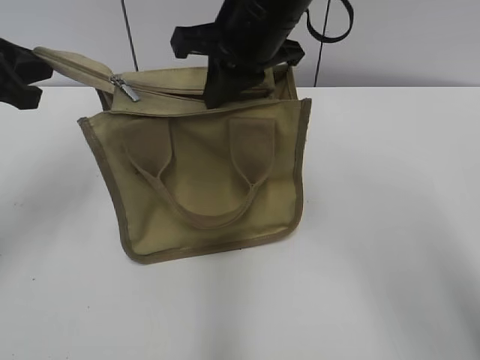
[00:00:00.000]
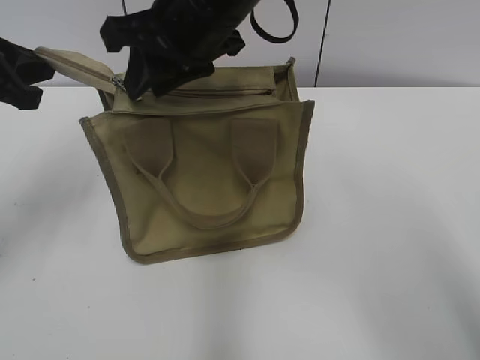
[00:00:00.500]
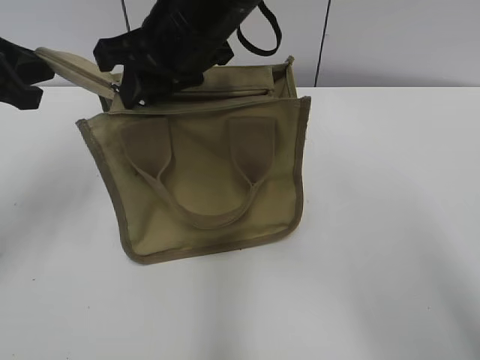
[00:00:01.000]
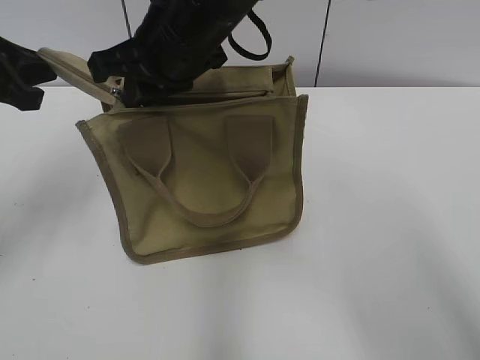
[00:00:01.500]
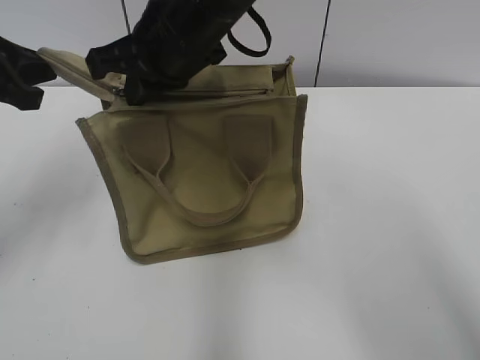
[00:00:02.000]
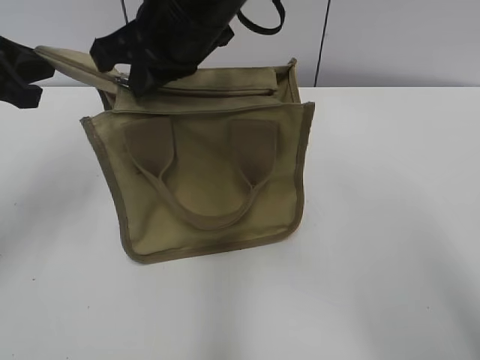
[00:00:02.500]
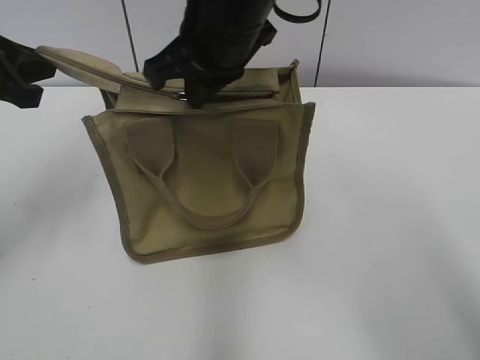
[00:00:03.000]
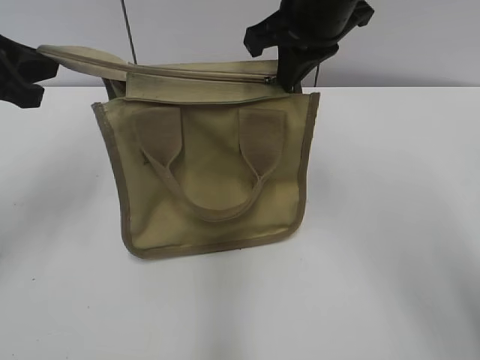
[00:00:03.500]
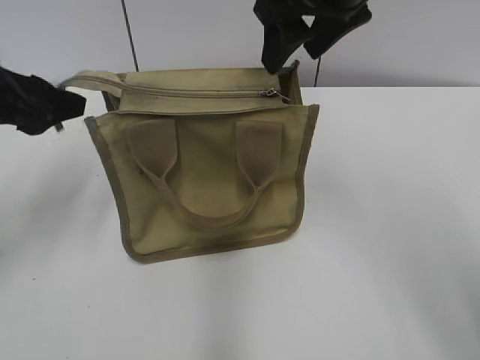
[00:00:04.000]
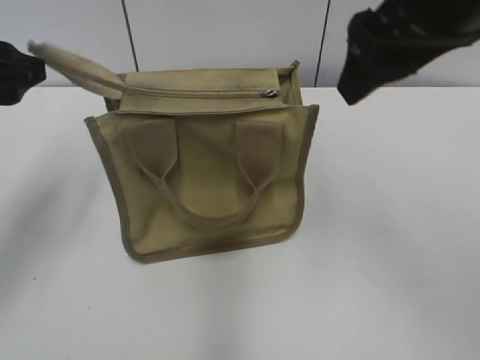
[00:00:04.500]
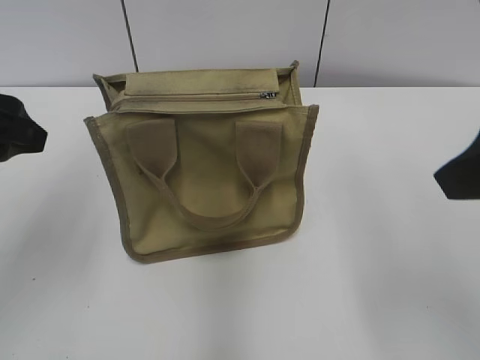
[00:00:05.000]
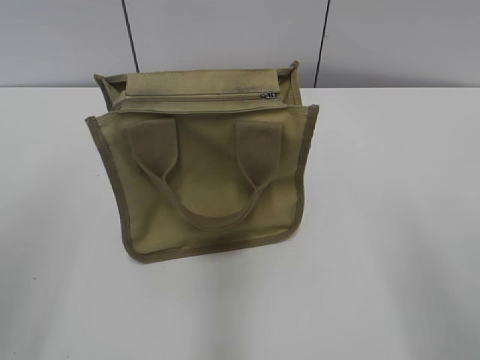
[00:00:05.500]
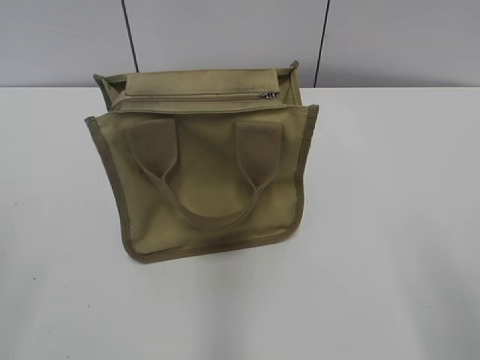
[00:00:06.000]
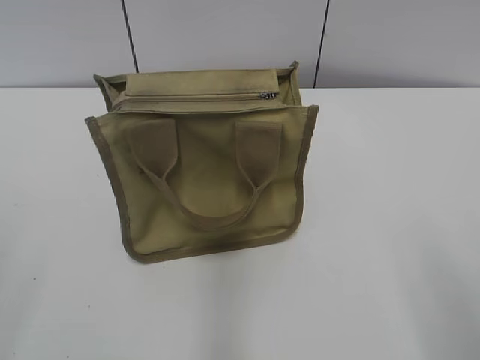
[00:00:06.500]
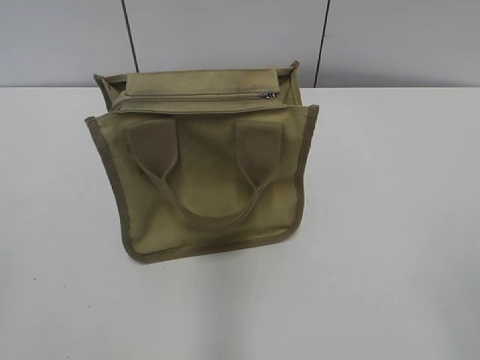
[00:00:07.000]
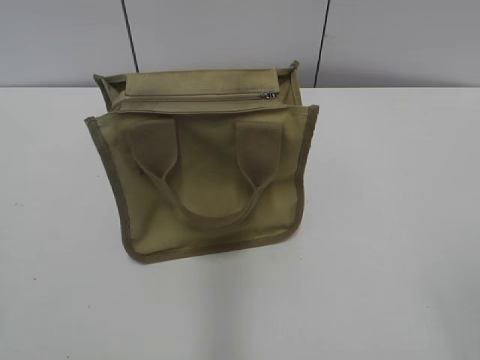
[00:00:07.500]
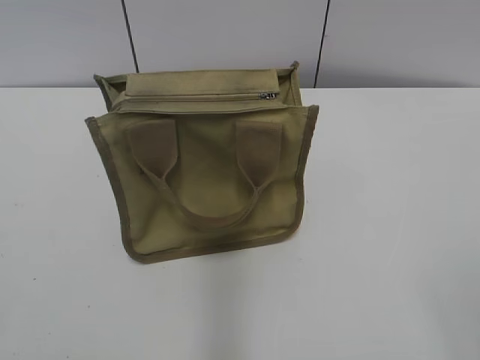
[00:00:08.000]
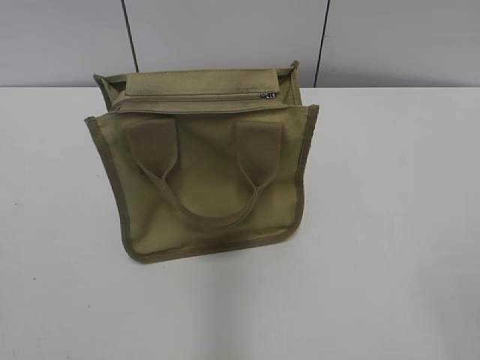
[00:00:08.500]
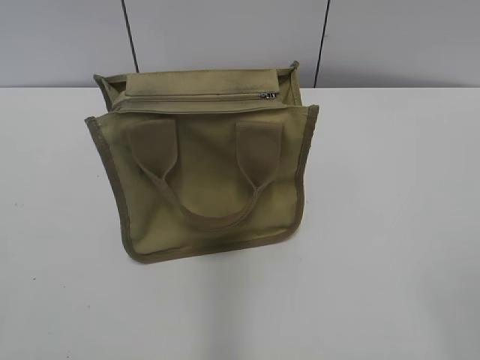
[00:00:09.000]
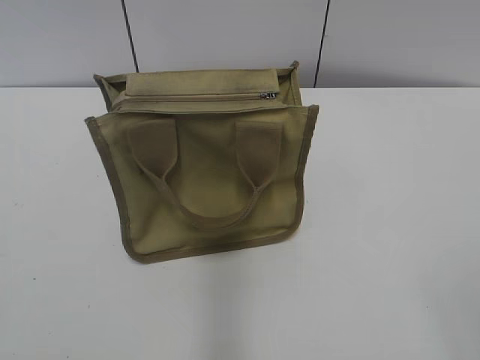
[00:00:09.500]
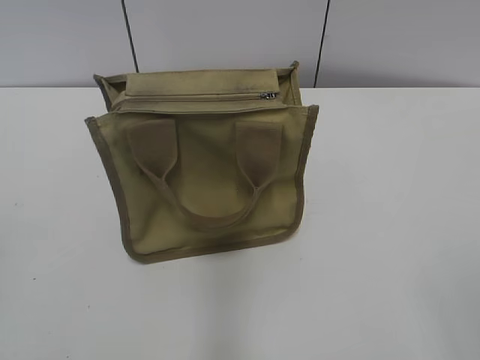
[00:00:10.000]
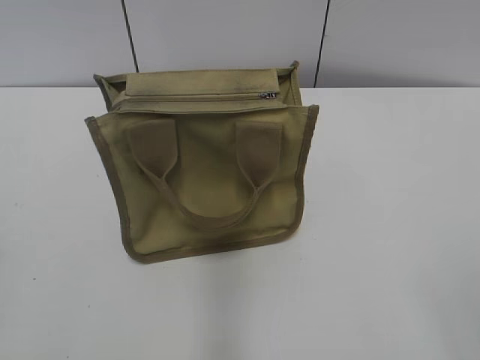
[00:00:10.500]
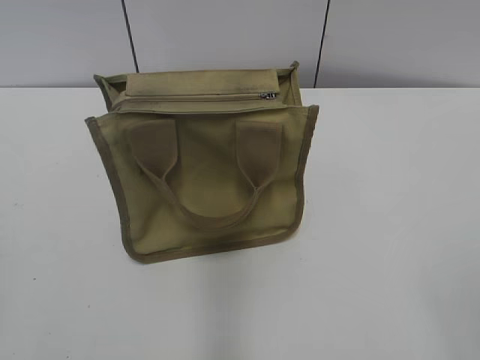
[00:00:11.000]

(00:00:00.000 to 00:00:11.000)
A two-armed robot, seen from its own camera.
Step, 00:00:00.000 - 00:00:03.500: Zip up the bag with your right hand.
Step, 00:00:04.000 - 00:00:04.500: Grab the zipper with your left hand.
00:00:00.000 - 00:00:02.000: The right gripper goes some 5 cm to the left, and opens, then closes once more.
00:00:02.000 - 00:00:03.500: The right gripper shifts approximately 10 cm to the right.
00:00:03.500 - 00:00:05.500: The left gripper shifts about 20 cm backward, and opens. The right gripper goes about 35 cm backward and to the right, and opens.
00:00:07.500 - 00:00:09.000: The two grippers keep their place.

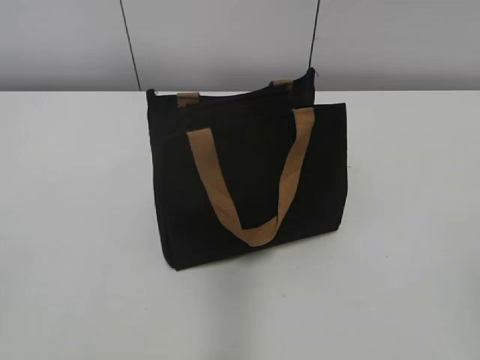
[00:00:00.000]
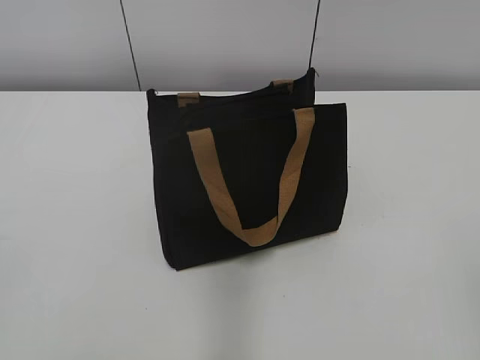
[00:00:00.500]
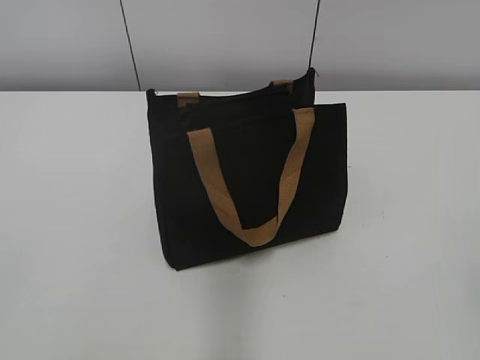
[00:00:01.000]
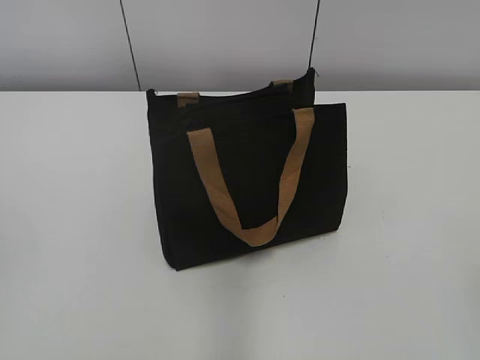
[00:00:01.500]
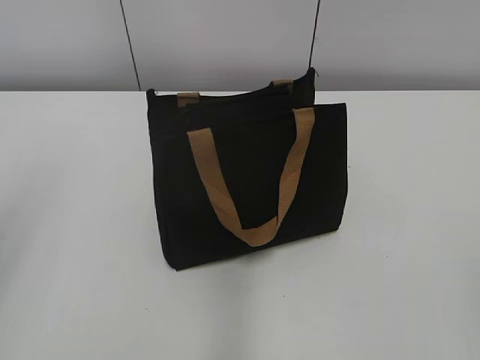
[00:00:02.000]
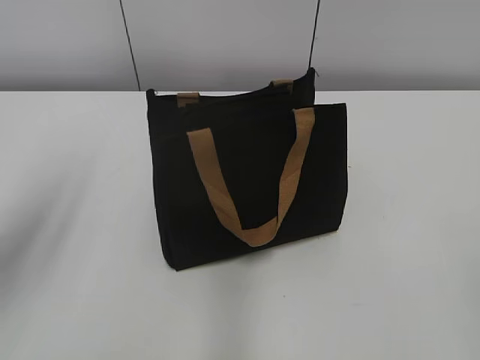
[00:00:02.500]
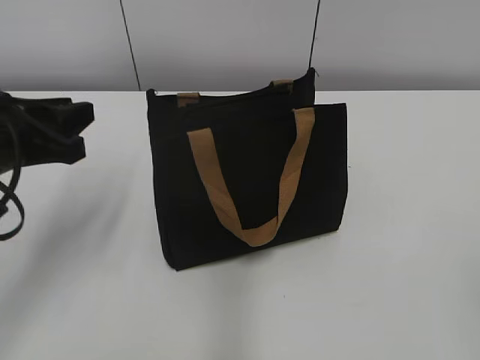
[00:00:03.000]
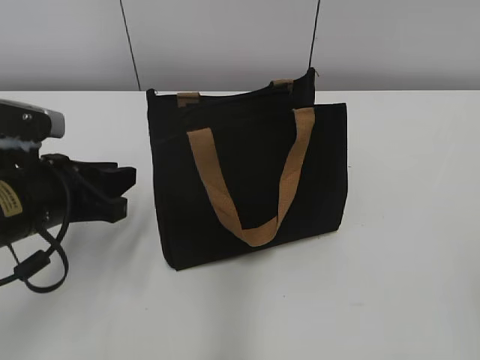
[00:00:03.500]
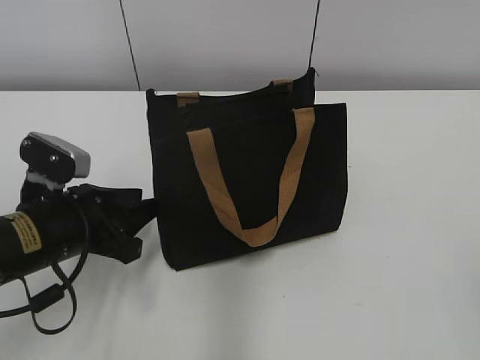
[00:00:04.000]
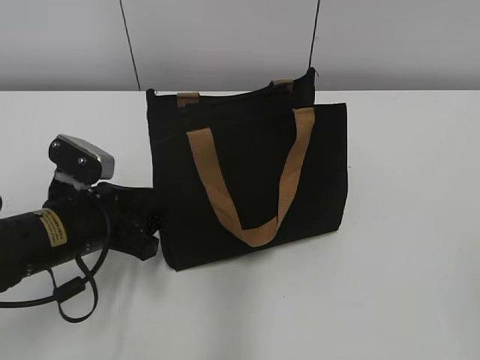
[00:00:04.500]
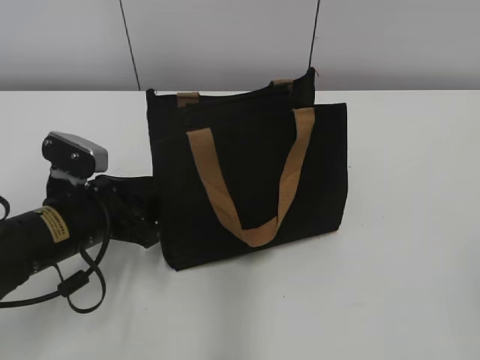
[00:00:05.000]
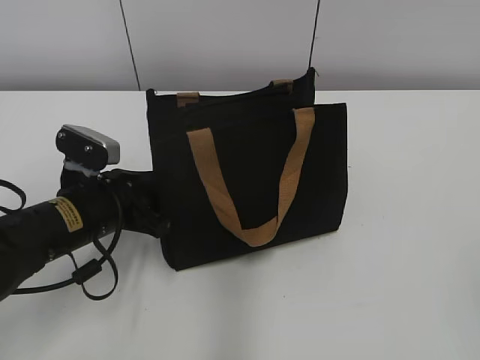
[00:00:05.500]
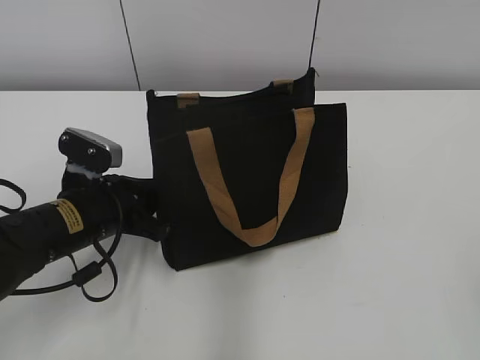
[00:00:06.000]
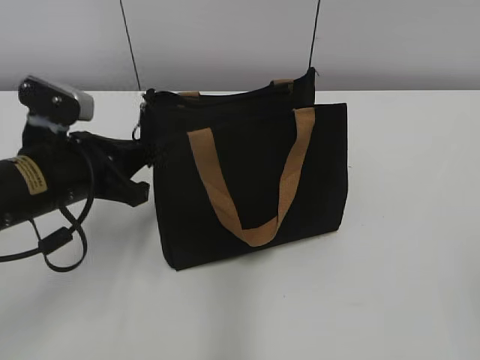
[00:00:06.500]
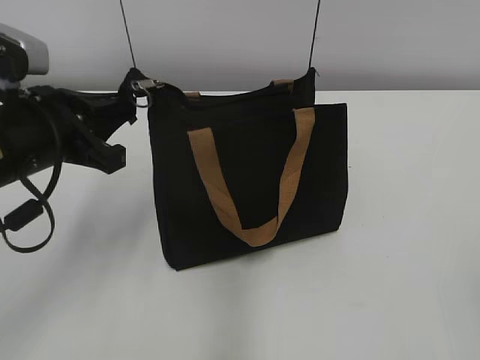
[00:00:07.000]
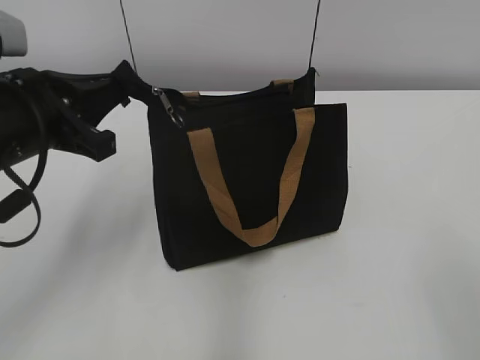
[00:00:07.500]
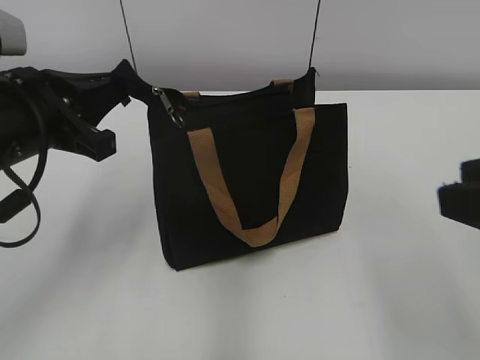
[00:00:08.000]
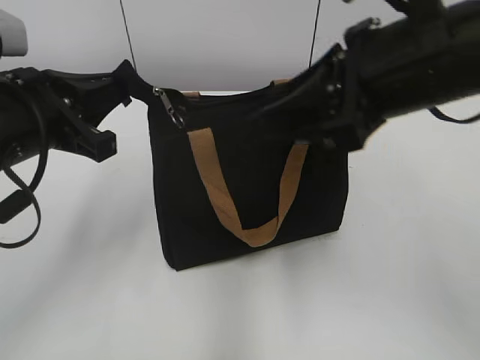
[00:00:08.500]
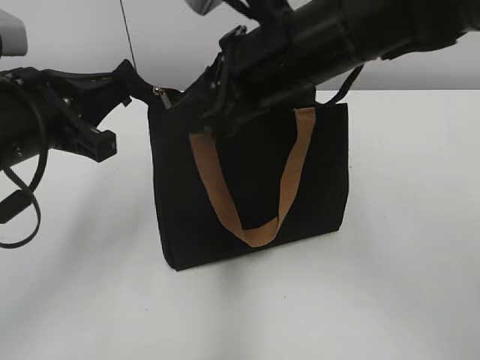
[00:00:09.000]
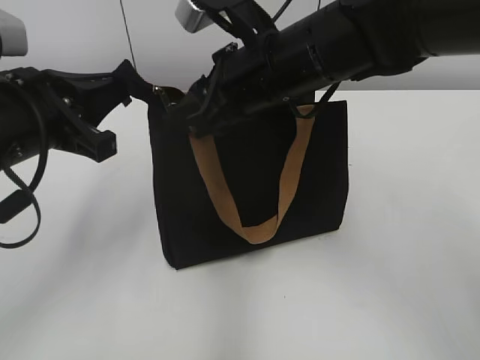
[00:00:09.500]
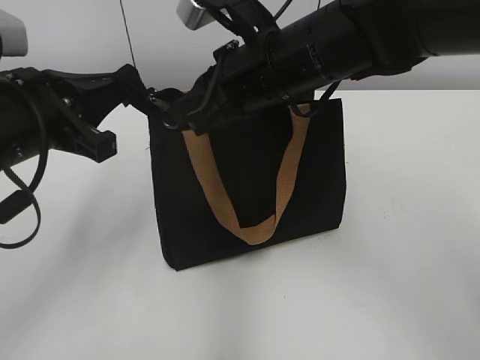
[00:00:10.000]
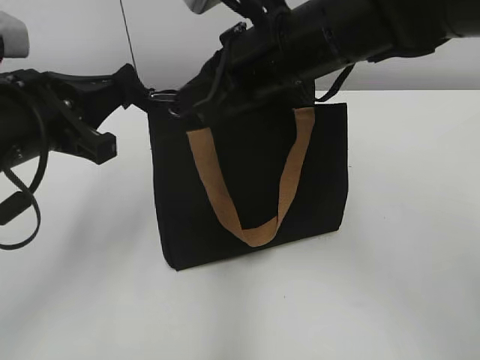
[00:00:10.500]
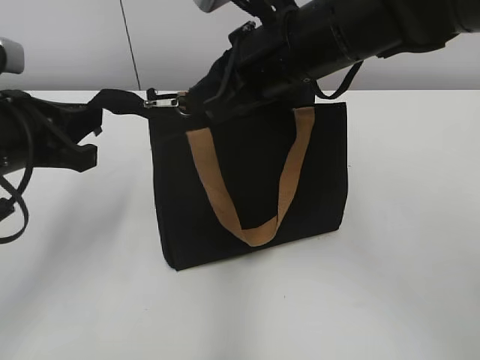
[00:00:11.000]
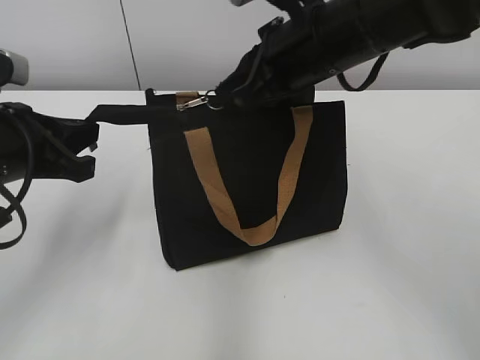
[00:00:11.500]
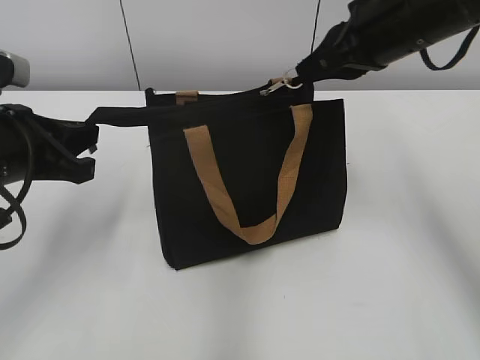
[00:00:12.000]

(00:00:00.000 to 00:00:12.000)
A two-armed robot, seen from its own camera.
00:00:02.000 - 00:00:04.000: The left gripper goes about 30 cm downward, forward and to the right.
00:00:04.000 - 00:00:06.000: The left gripper ends up some 5 cm from where it was, and closes up.
00:00:06.000 - 00:00:08.000: The right gripper is displaced forward and to the left by some 10 cm; the left gripper heads upward, covering about 15 cm.
00:00:08.000 - 00:00:10.000: The right gripper moves forward and to the left, roughly 30 cm, and closes its fingers.
00:00:10.000 - 00:00:12.000: The right gripper shifts approximately 10 cm to the right.

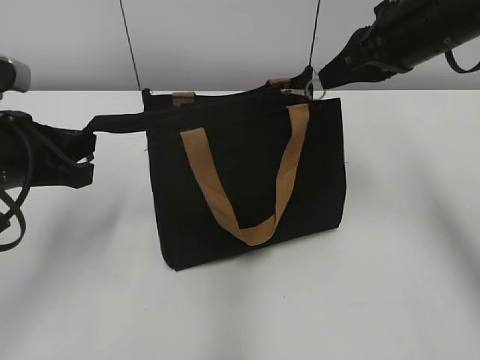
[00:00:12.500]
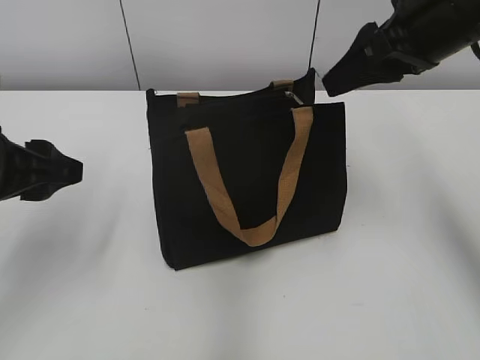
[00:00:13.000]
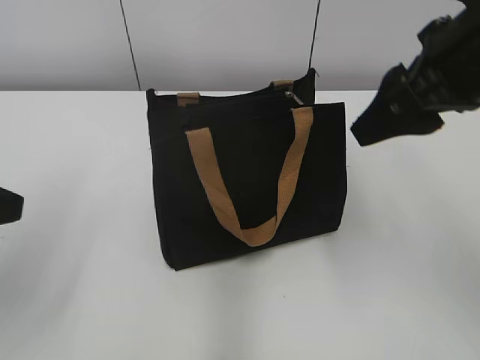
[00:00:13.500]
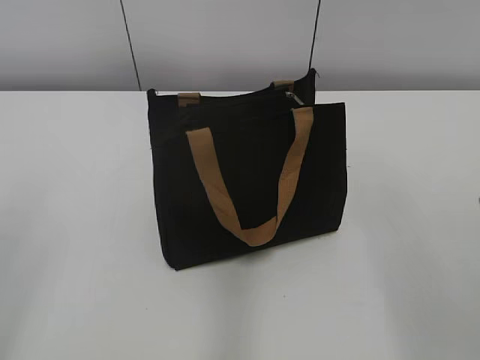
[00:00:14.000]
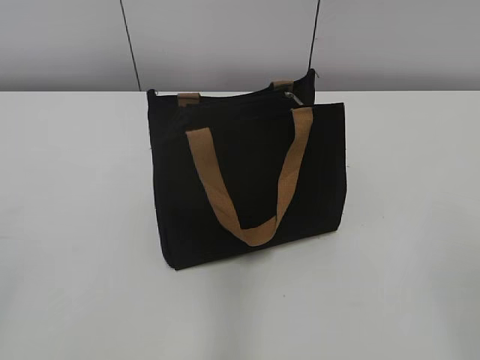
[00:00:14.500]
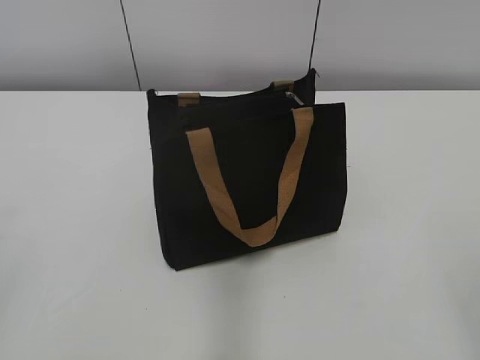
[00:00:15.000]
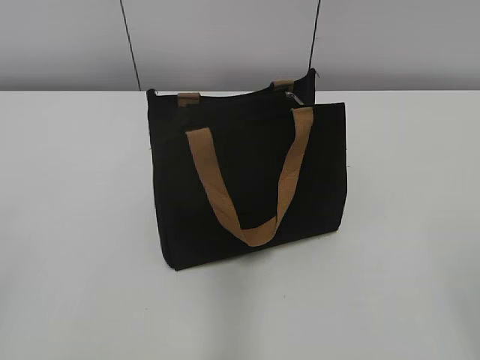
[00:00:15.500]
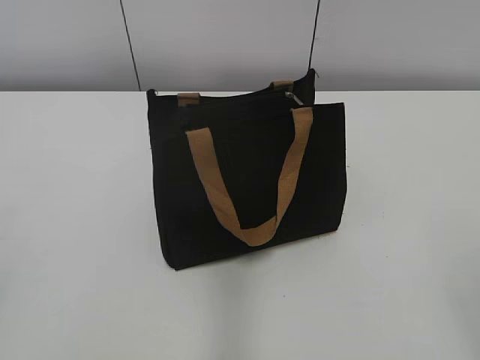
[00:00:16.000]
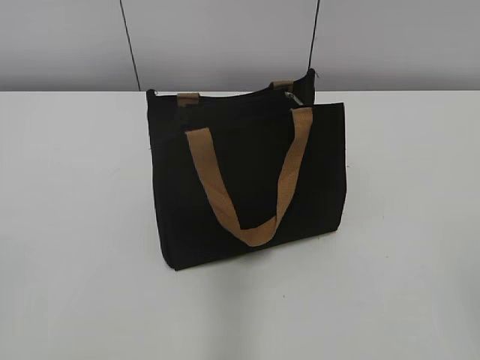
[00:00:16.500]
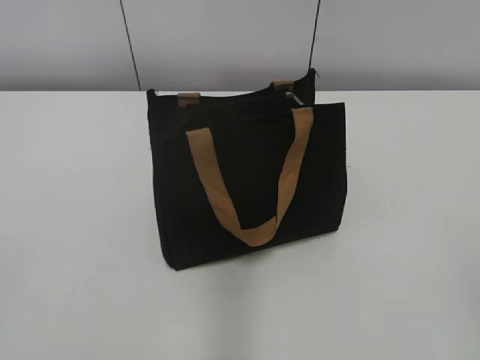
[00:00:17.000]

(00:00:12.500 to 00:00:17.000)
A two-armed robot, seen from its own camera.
00:00:12.500 - 00:00:14.500: The left gripper heads backward and to the left, covering roughly 25 cm, and opens. The right gripper goes approximately 35 cm backward, and opens up.
